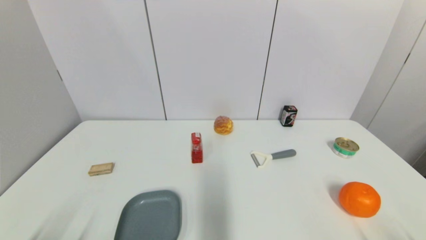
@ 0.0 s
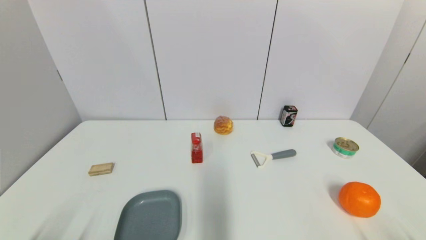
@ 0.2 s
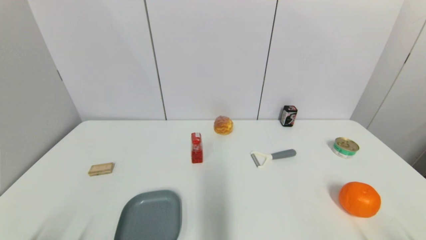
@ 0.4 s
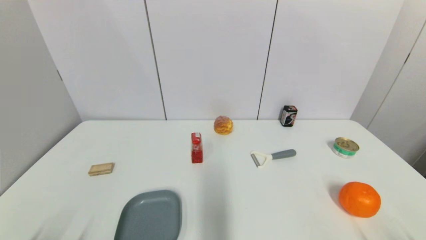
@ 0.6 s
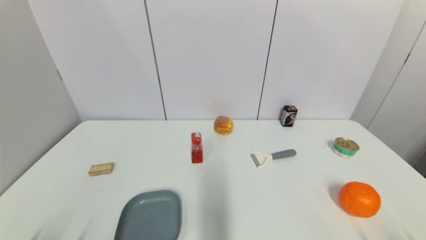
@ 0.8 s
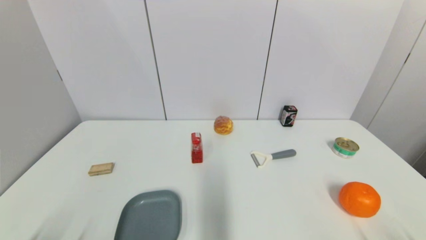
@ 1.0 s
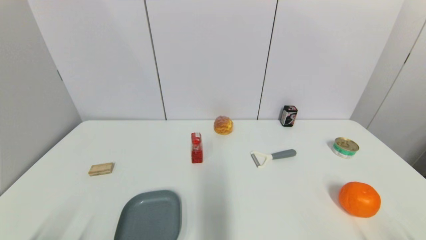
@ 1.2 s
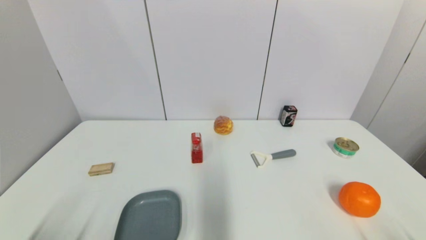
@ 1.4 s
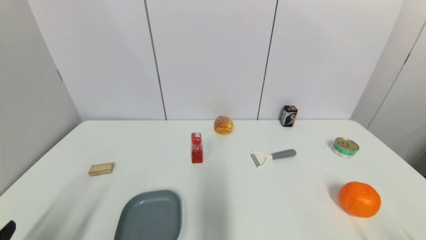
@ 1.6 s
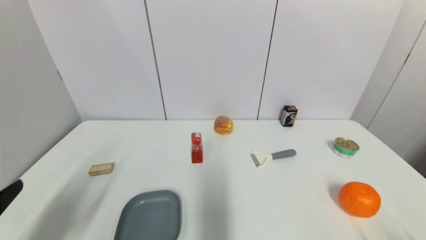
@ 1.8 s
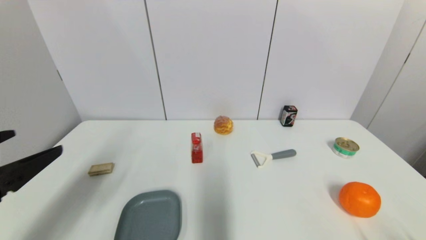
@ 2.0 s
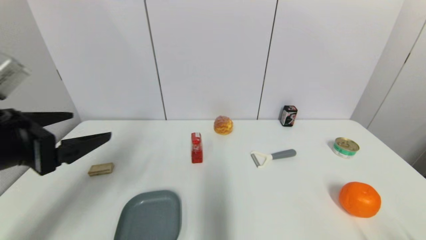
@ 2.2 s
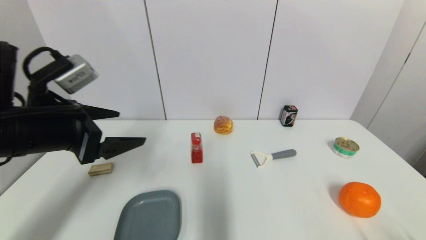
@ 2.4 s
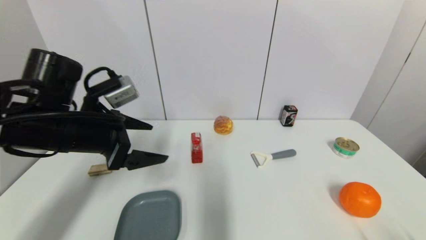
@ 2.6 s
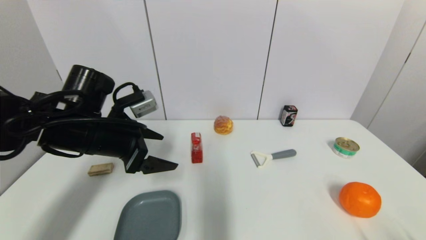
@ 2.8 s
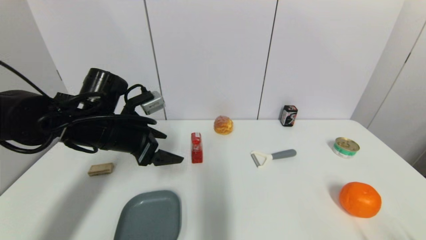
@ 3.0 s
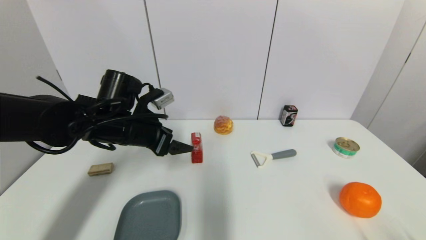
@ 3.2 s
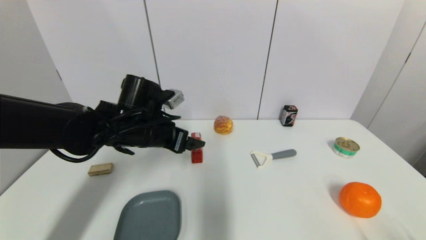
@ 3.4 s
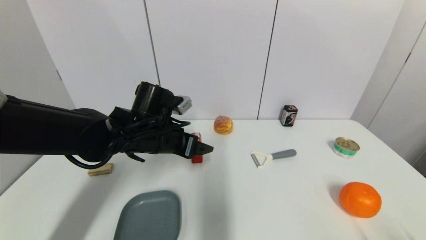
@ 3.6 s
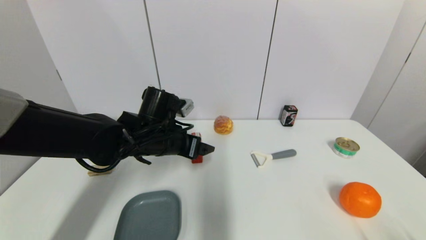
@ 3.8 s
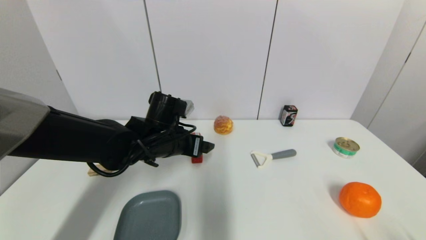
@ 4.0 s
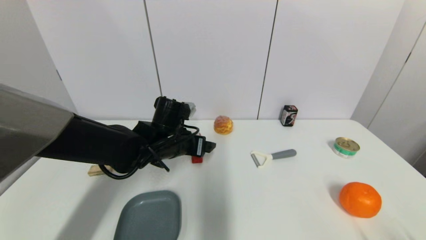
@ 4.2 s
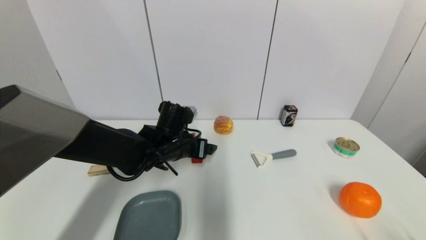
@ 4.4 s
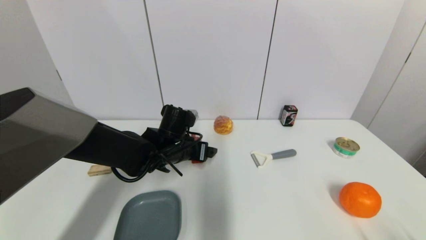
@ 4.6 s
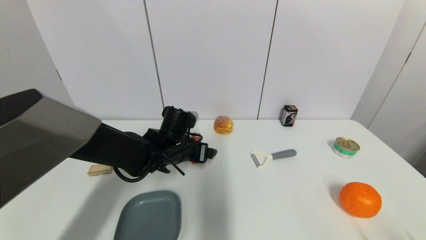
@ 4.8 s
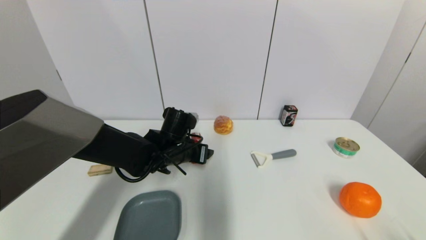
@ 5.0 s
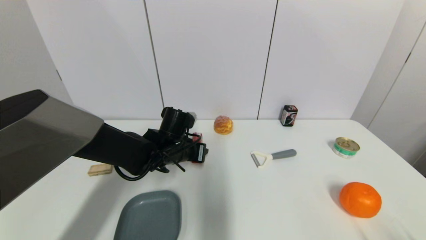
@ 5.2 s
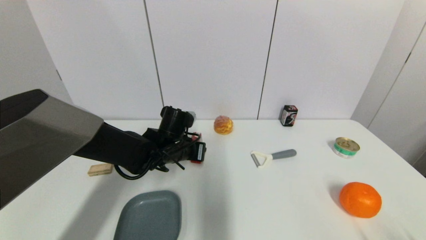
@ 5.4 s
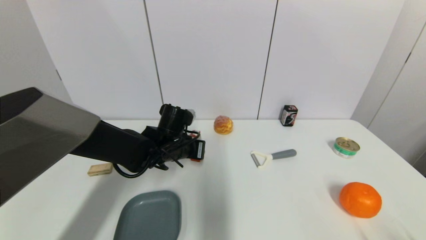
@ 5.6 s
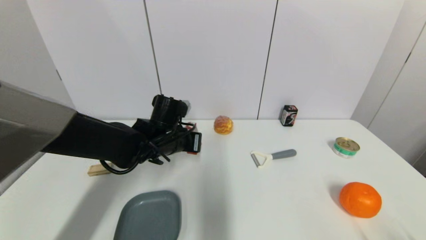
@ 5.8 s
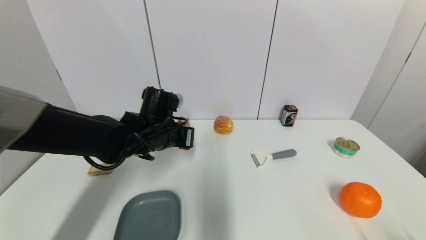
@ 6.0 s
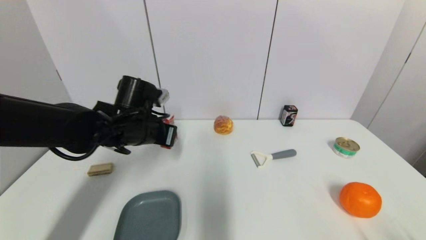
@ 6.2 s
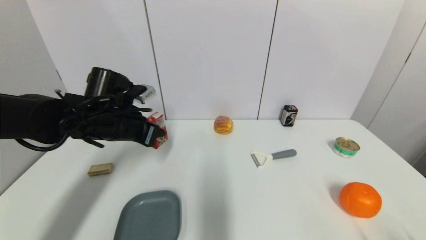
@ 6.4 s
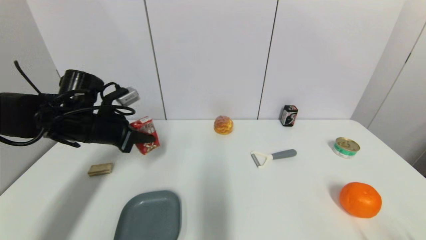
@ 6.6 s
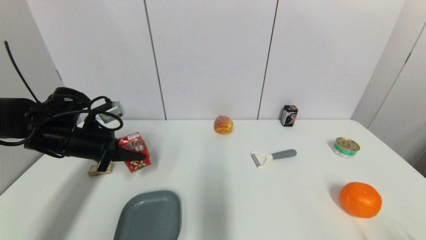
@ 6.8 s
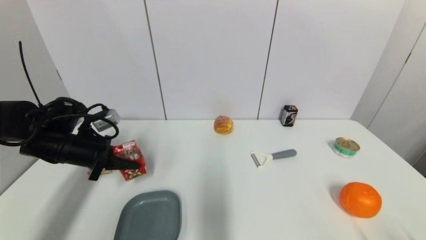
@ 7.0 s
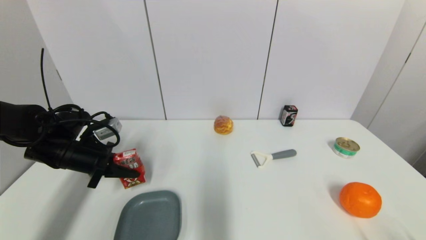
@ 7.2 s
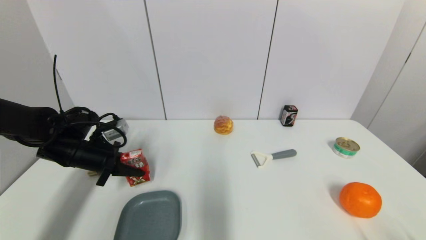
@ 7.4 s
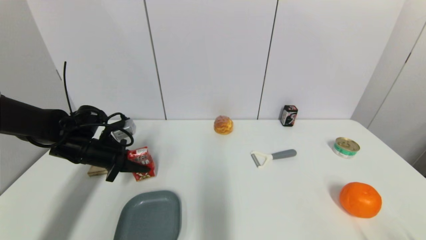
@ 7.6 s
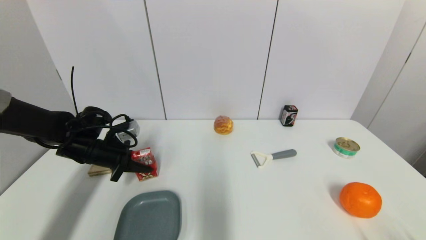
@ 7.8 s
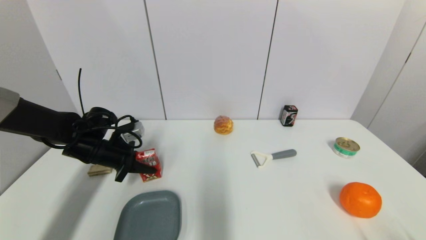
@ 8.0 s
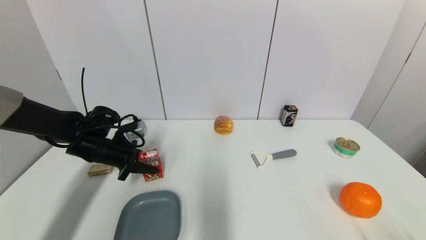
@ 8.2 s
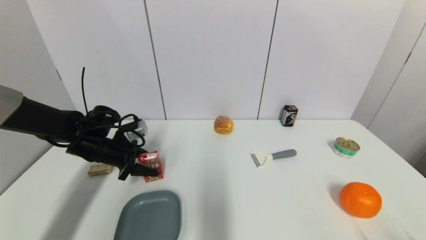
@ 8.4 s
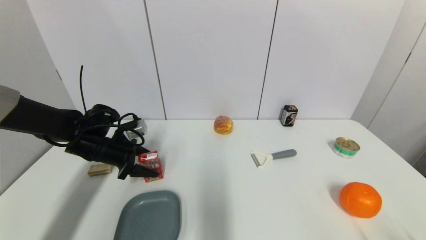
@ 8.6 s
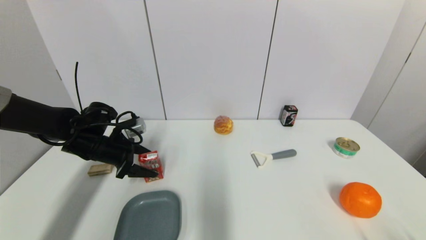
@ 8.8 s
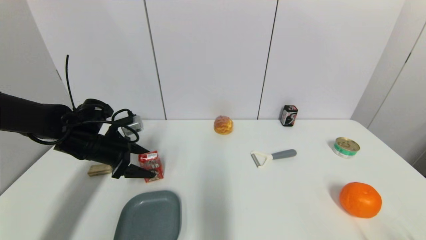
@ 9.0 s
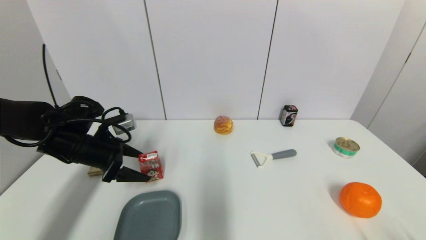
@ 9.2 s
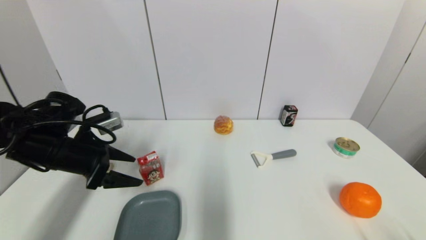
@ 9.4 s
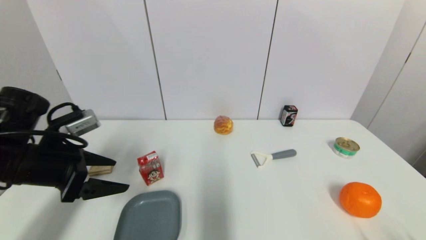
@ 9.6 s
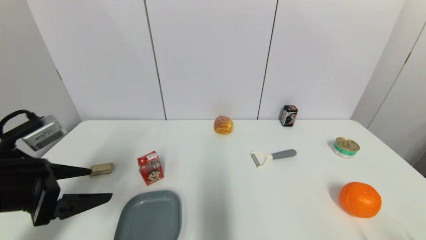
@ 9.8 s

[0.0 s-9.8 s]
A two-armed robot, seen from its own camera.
Step, 1.6 to 5.6 s: Grasp the wangzai milk with left gripper.
Step, 5.8 to 8.2 s: Place the wangzai milk on the table with left gripper.
1.4 to 2.8 s: The left gripper heads forward and upward, covering roughly 30 cm.
2.8 to 4.2 s: The left gripper goes roughly 15 cm to the right, downward and forward.
4.2 to 5.6 s: The left gripper closes its fingers.
5.6 to 7.0 s: The left gripper moves to the left, approximately 20 cm.
7.0 to 8.4 s: The left gripper moves approximately 5 cm, and opens its fingers.
8.4 to 9.8 s: The left gripper shifts some 20 cm backward and upward, and opens up.

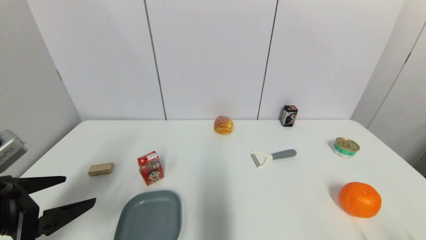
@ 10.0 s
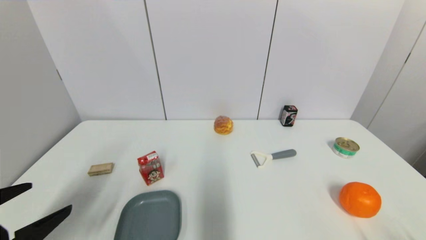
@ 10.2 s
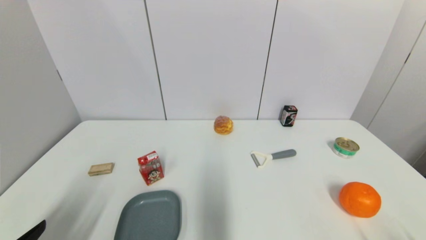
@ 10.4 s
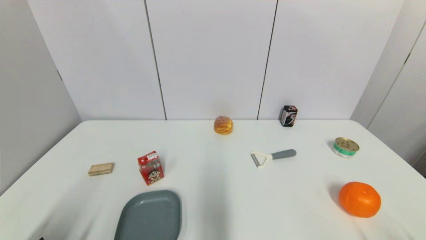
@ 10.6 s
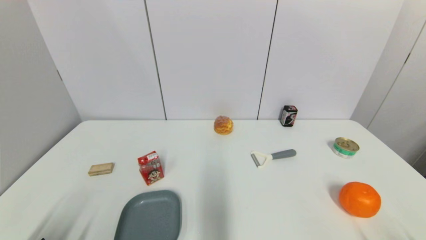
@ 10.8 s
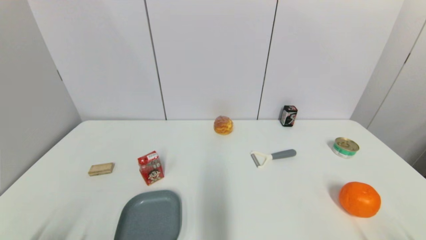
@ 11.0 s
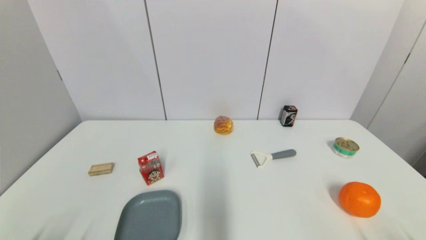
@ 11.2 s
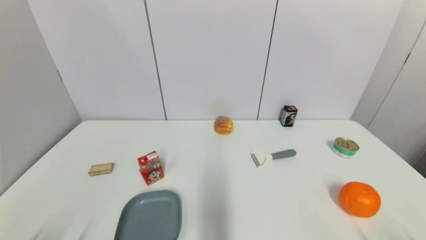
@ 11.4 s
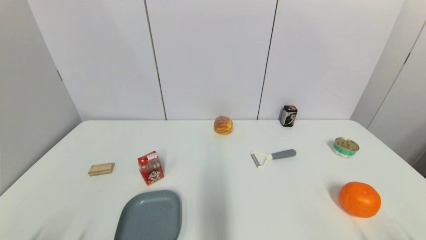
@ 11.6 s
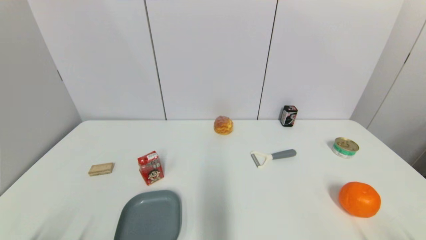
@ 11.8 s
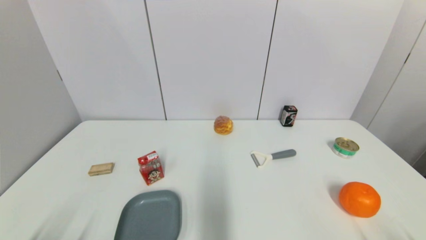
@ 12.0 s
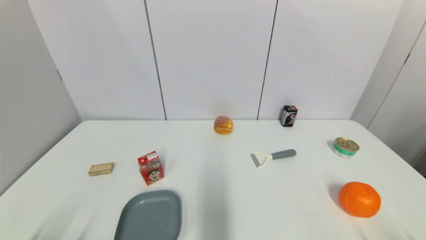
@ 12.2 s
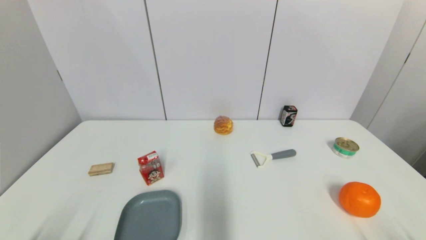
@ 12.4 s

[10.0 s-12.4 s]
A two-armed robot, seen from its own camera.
10.0 to 11.2 s: The left gripper heads downward and backward, covering about 15 cm.
11.2 to 12.4 s: Neither gripper changes place.
